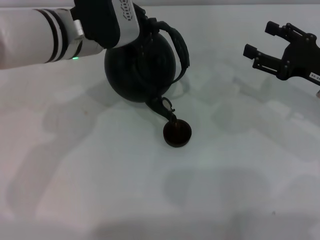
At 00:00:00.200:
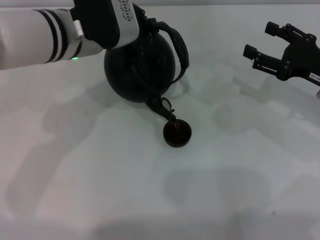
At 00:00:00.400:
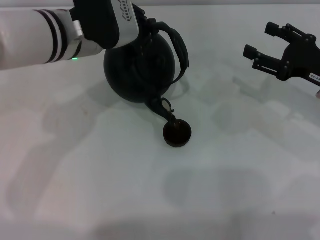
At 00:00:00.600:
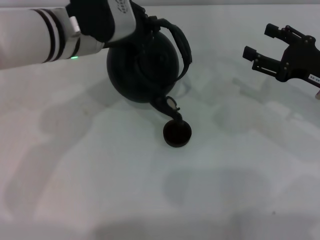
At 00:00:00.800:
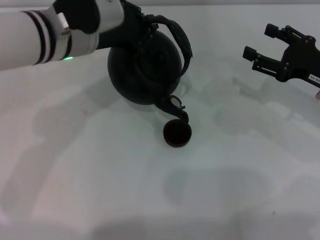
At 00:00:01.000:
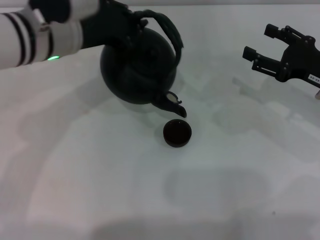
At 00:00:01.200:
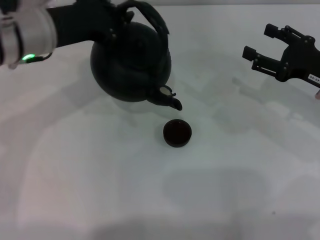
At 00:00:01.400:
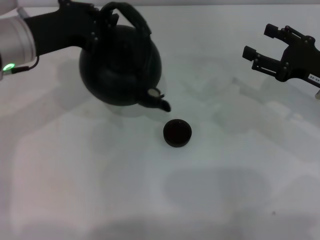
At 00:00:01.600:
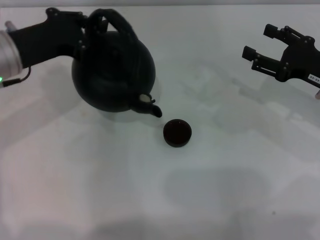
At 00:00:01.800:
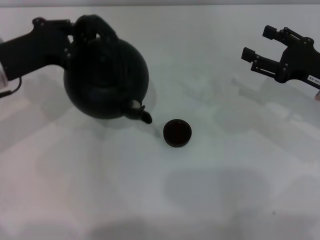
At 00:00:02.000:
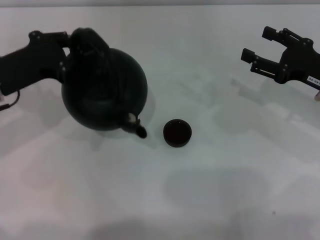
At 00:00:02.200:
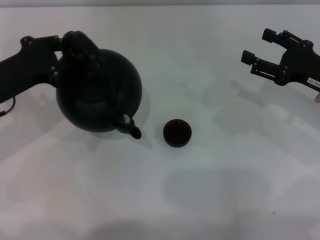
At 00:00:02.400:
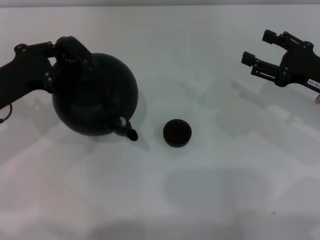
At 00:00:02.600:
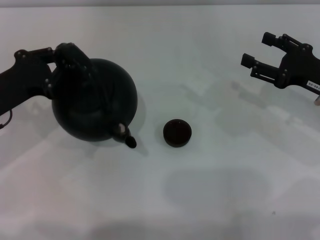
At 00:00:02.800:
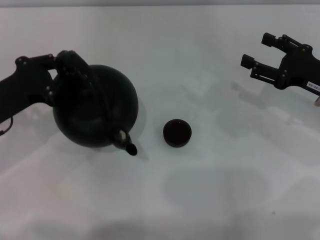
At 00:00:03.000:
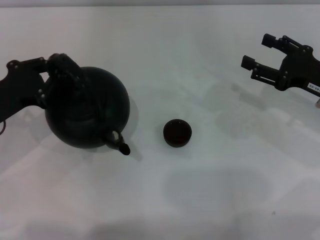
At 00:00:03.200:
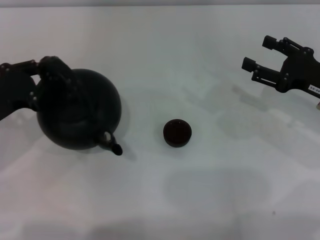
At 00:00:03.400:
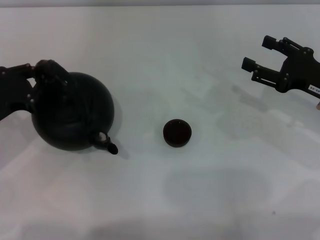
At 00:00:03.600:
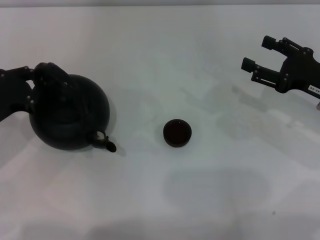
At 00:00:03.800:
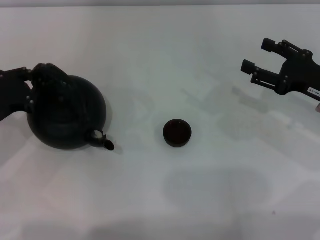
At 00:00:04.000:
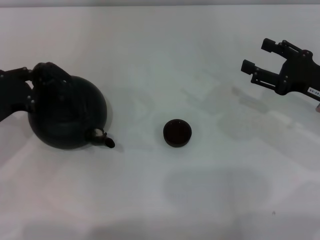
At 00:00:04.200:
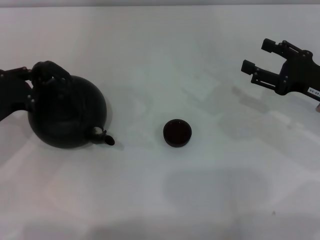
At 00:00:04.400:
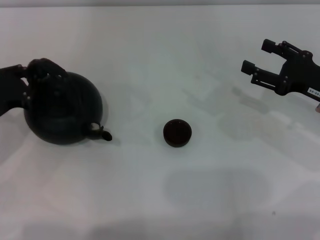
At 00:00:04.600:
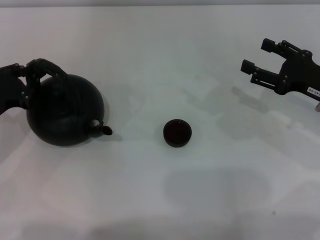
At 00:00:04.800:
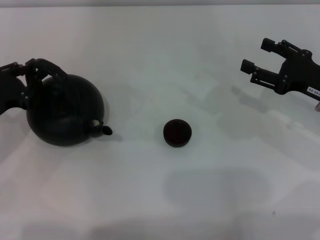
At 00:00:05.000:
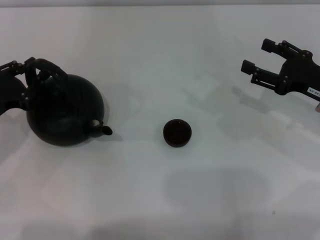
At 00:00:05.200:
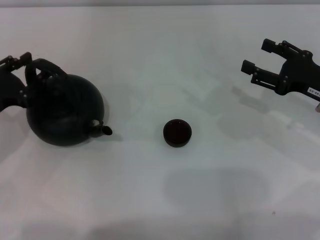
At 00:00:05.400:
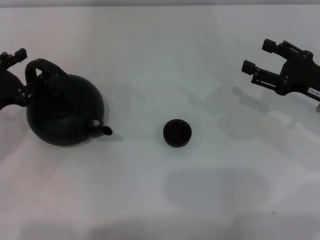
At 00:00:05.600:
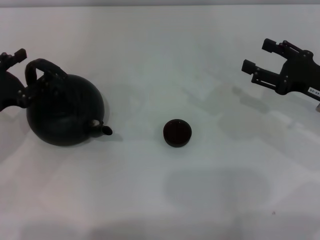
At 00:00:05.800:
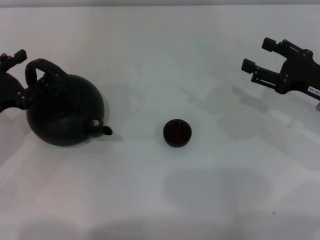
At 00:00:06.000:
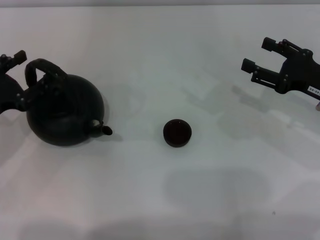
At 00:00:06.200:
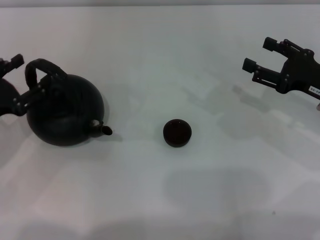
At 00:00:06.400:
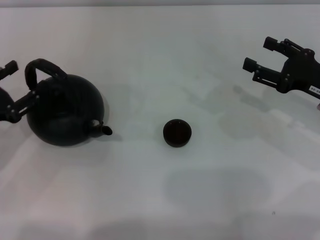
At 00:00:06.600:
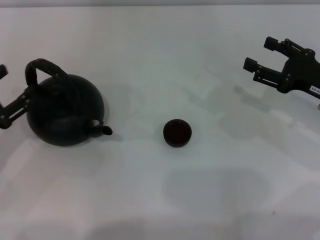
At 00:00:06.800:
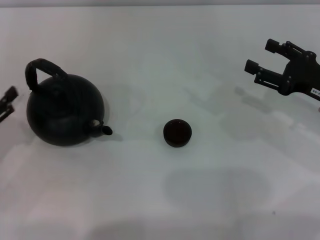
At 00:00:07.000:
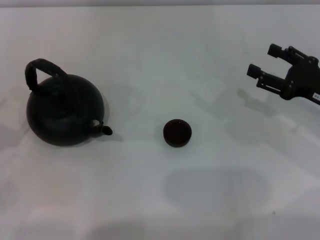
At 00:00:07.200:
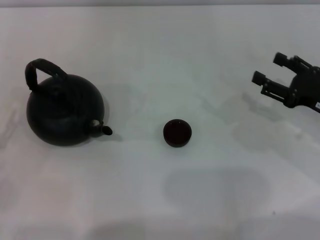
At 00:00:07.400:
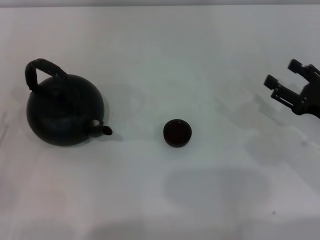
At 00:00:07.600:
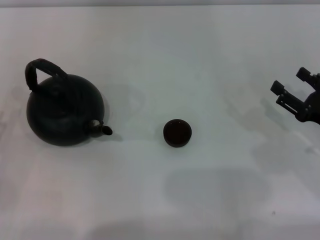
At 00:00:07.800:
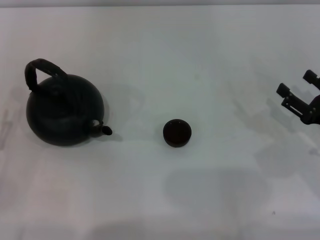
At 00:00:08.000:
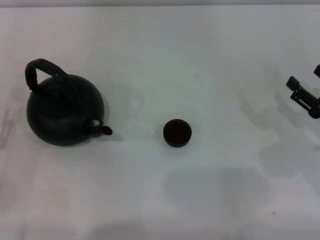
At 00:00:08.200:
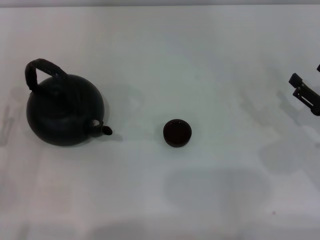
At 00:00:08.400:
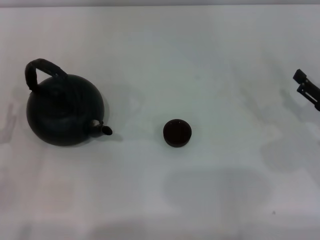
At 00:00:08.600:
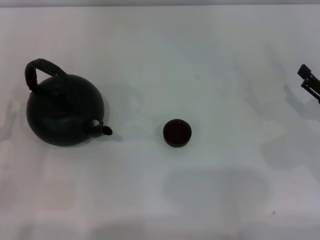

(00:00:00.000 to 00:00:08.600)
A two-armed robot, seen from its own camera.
Task of the whole recording: Grasp the handle of the teapot with one hand and pour tea into the teacup.
Step, 00:00:01.400 - 00:00:06.600: Put down the teapot with the left gripper.
00:00:00.000 - 00:00:01.400: The left gripper shifts some 10 cm to the left.
00:00:01.400 - 00:00:02.800: The left gripper heads downward, to the left and backward, covering some 15 cm.
00:00:02.800 - 00:00:04.400: There are only small adjustments of the grippers.
00:00:04.400 - 00:00:05.800: The left gripper opens up.
00:00:05.800 - 00:00:07.200: The left gripper shifts approximately 10 cm backward.
